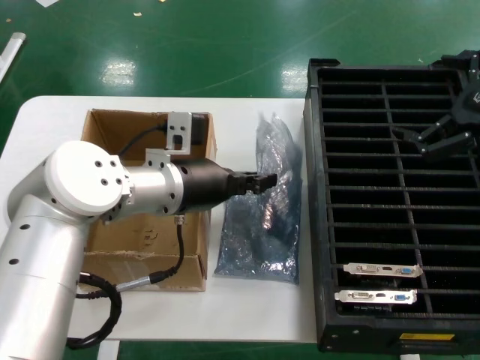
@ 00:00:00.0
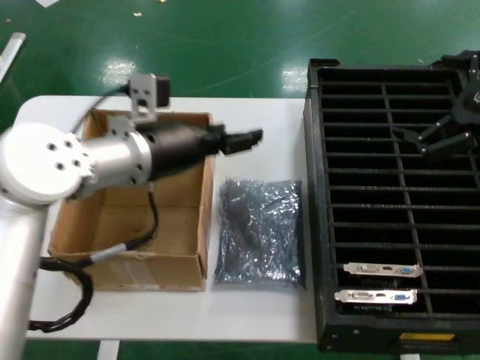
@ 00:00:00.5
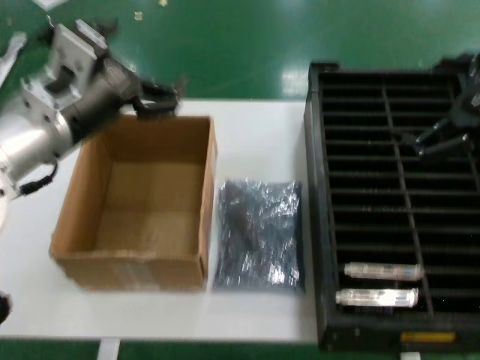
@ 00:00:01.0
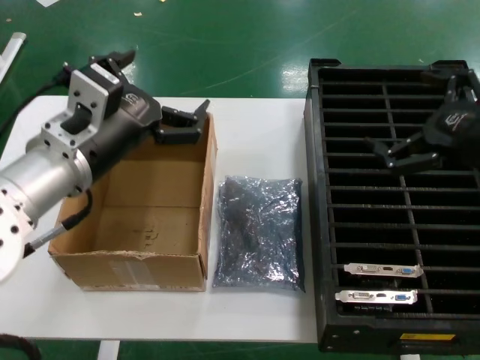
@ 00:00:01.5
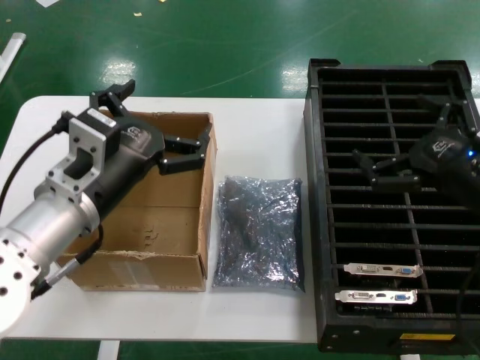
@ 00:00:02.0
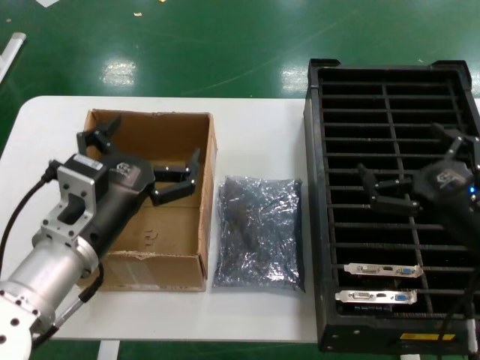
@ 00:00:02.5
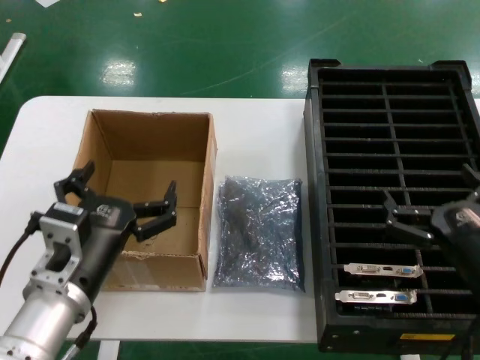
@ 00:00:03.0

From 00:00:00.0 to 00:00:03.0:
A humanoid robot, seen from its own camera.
Task of the whole recording: take out graphics card from box remove packaging put into black container.
Step, from 00:00:00.0 to 00:00:02.0: Place the down the bag.
From 00:00:00.0 to 00:00:01.5: The right hand moves downward, approximately 5 cm; the left hand shifts some 10 cm backward and to the left.
From 00:00:01.5 to 00:00:03.0: Both hands move downward and backward, about 15 cm.
